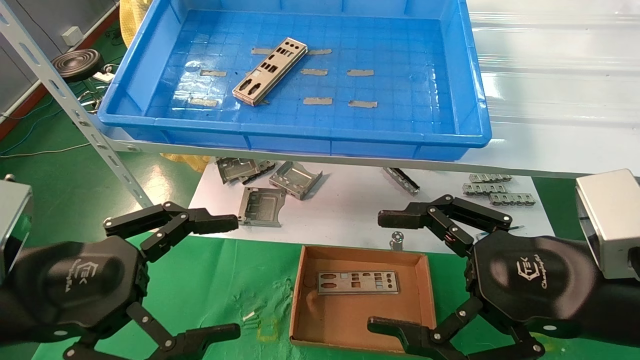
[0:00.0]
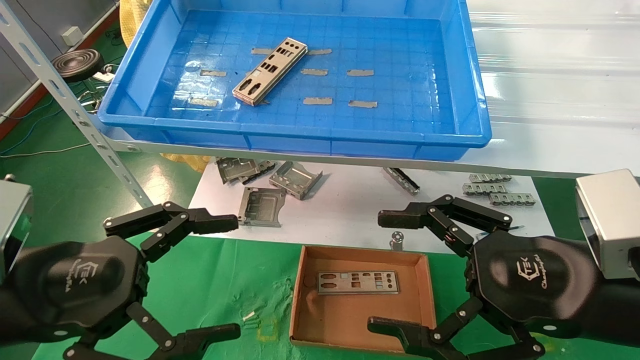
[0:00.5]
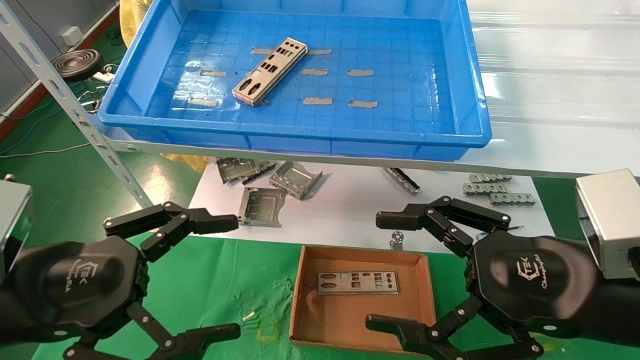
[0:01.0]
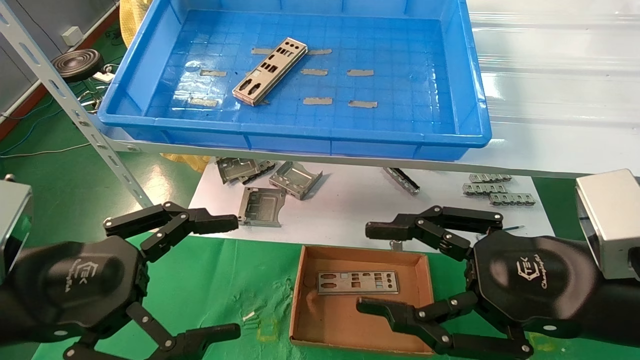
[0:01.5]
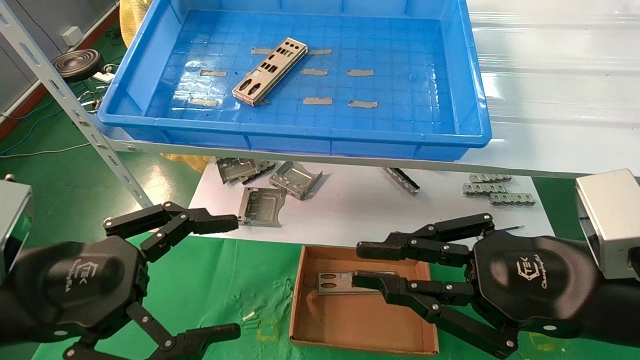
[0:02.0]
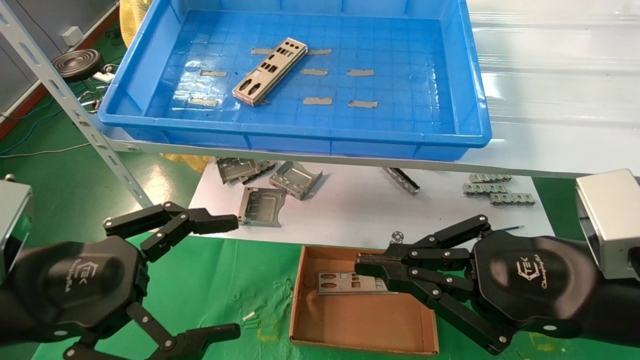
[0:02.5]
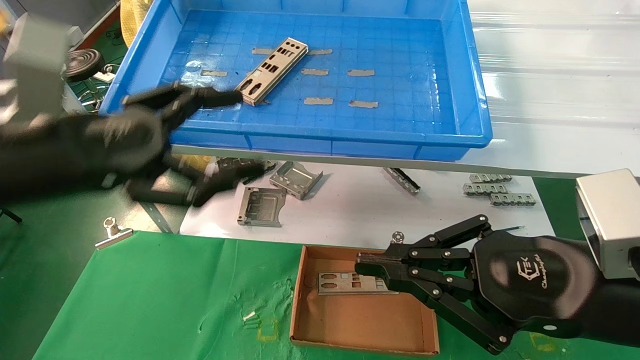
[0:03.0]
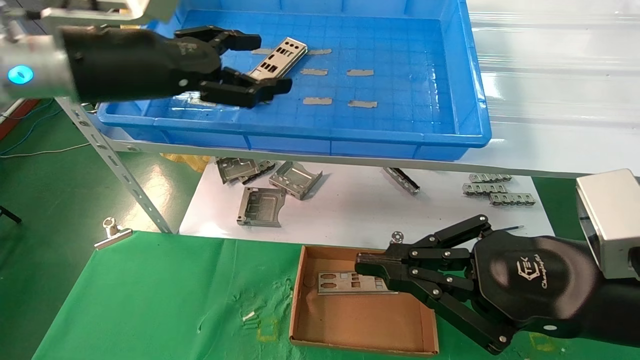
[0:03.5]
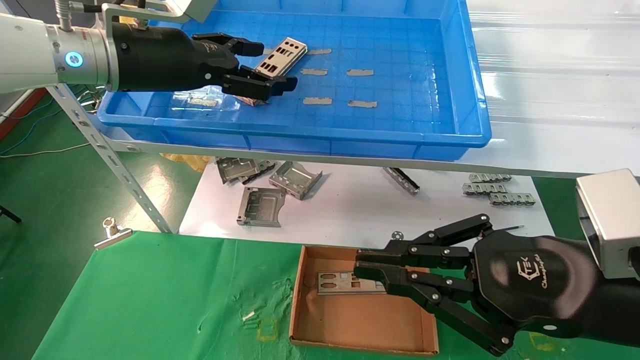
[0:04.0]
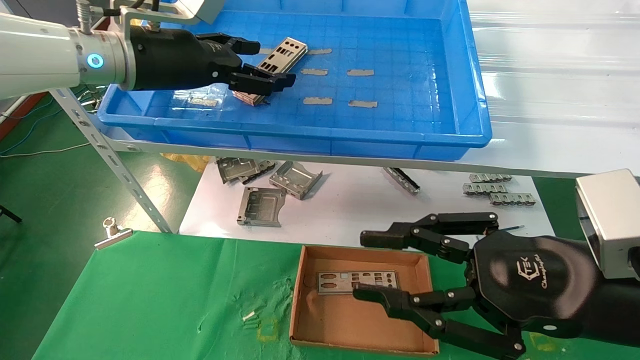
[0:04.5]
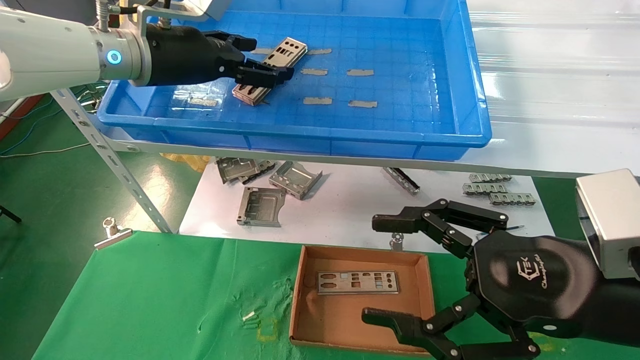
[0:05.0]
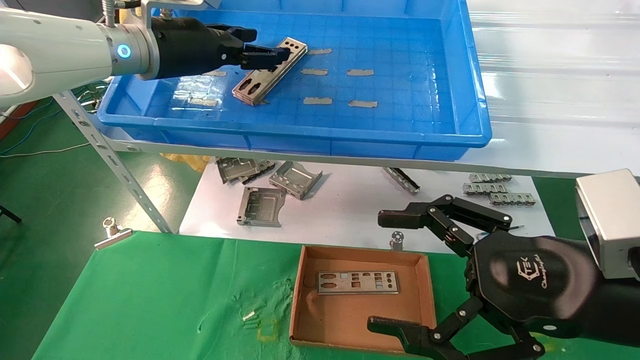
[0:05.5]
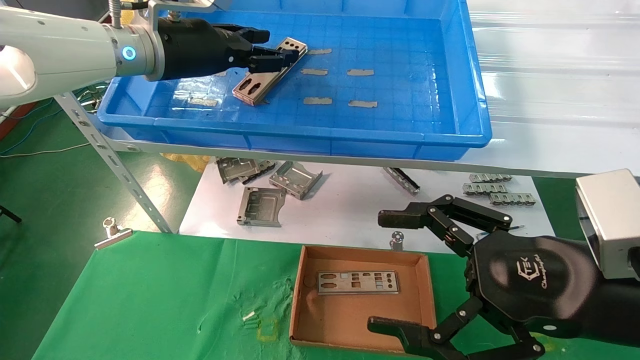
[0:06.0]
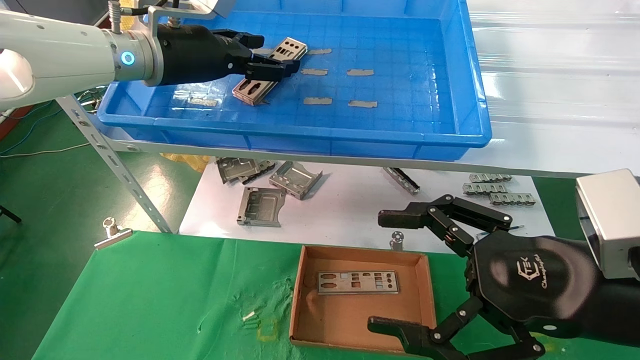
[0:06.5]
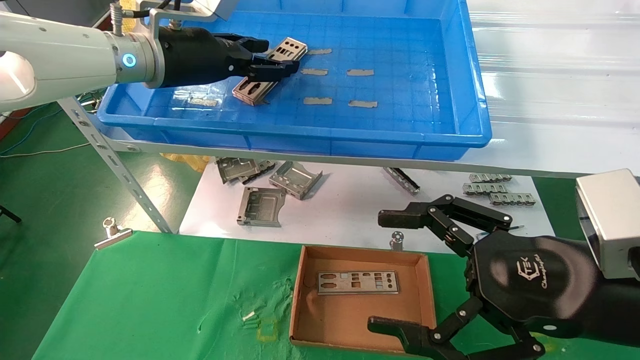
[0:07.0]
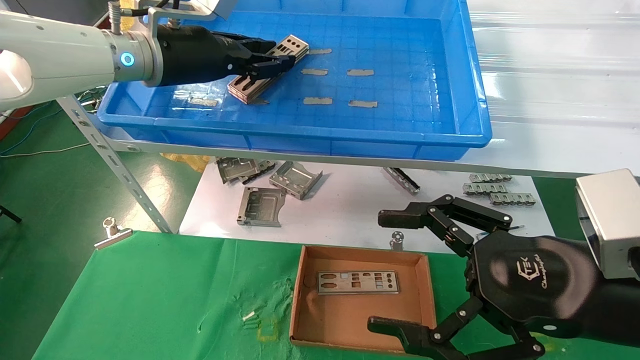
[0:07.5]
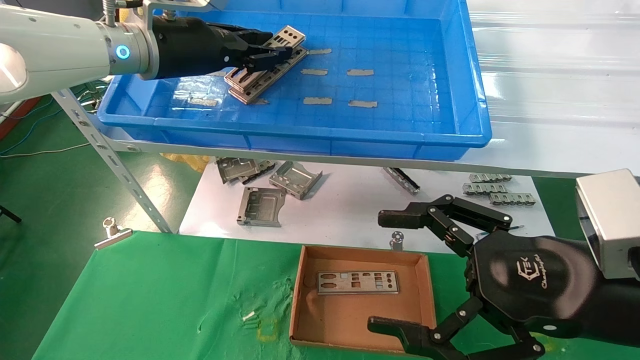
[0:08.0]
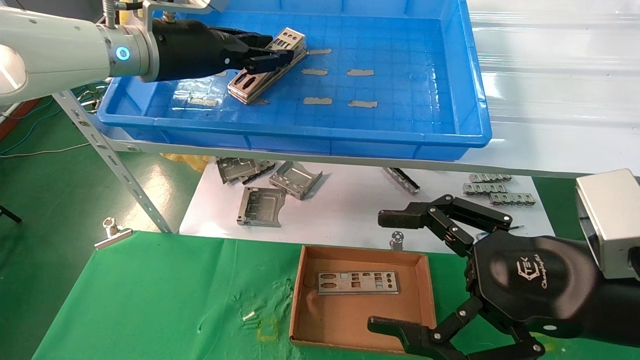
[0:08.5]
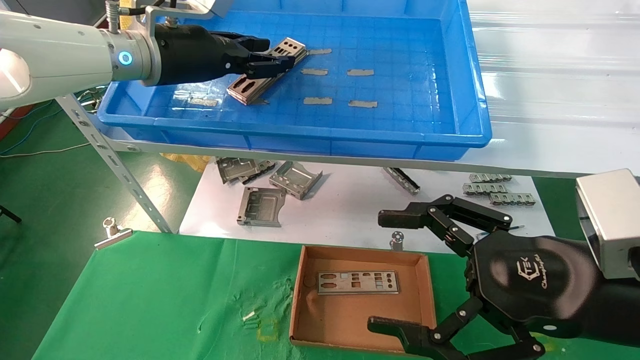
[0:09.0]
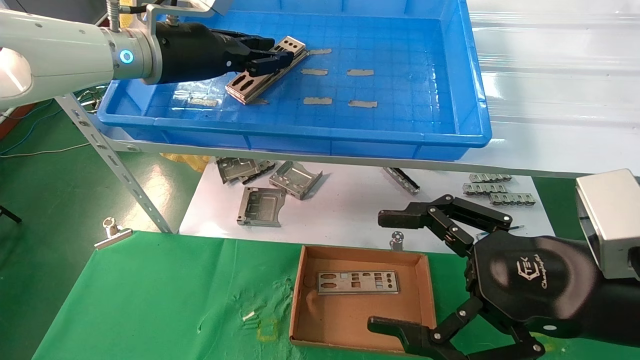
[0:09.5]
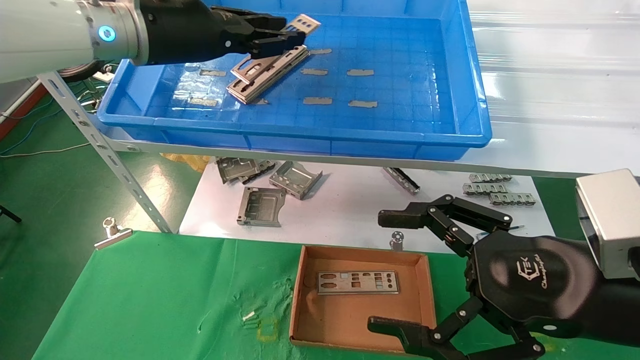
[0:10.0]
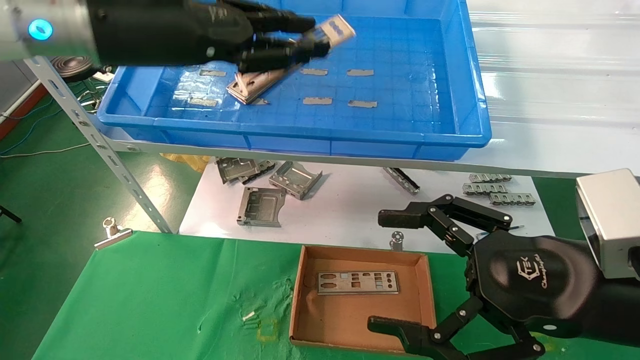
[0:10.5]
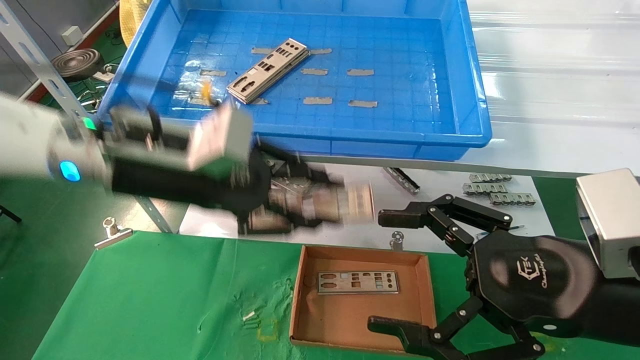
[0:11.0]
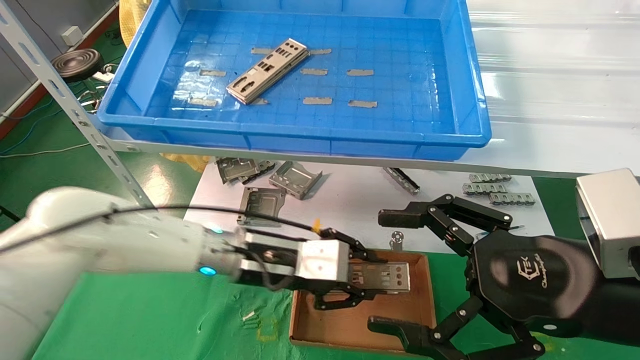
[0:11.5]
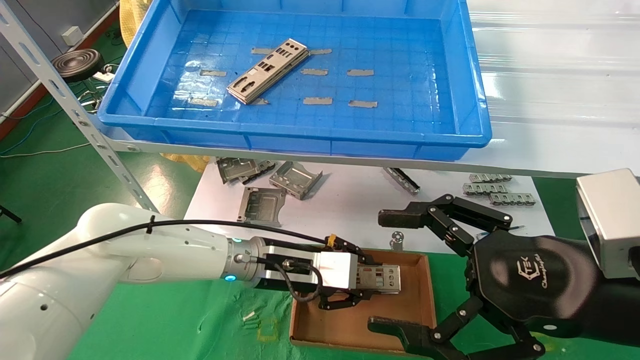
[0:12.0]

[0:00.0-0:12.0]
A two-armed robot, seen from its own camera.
Task of the whole recording: pick up the parts on the tray and put them in the cardboard box.
Step, 0:03.0 to 0:09.5: Pick up the IO bracket from the container box.
0:00.0 to 0:02.0: The right gripper closes its fingers.
0:02.0 to 0:04.0: The left gripper is displaced forward and upward by about 25 cm.
0:04.0 to 0:06.0: The right gripper opens up. The left gripper closes.
0:06.0 to 0:08.0: The left gripper closes.
0:08.0 to 0:10.0: The grippers move only a little.
0:10.0 to 0:12.0: The left gripper moves downward, roughly 30 cm.

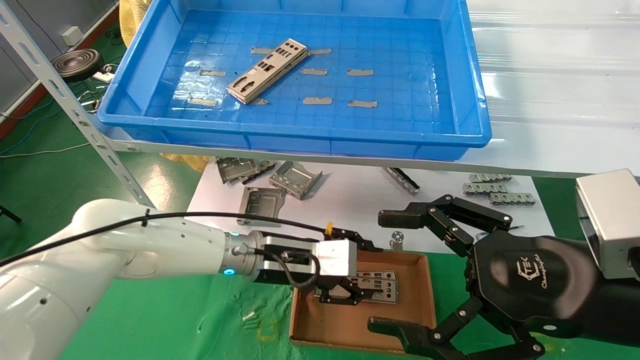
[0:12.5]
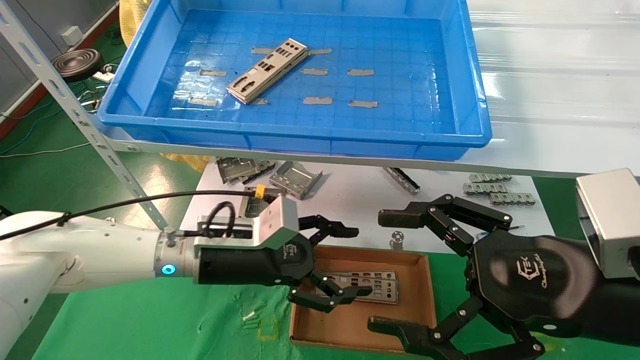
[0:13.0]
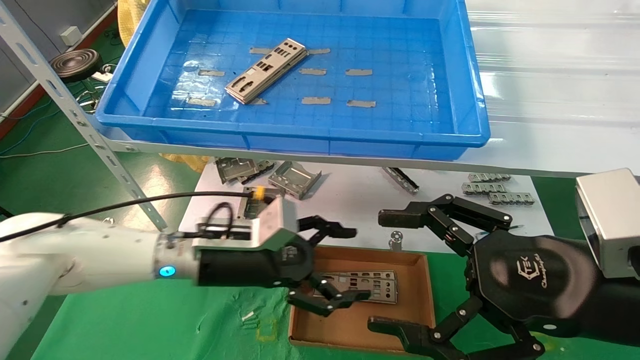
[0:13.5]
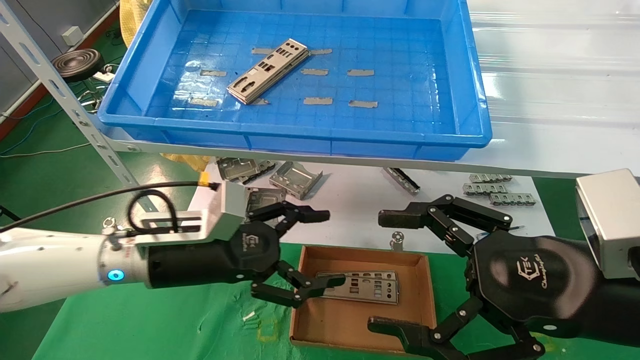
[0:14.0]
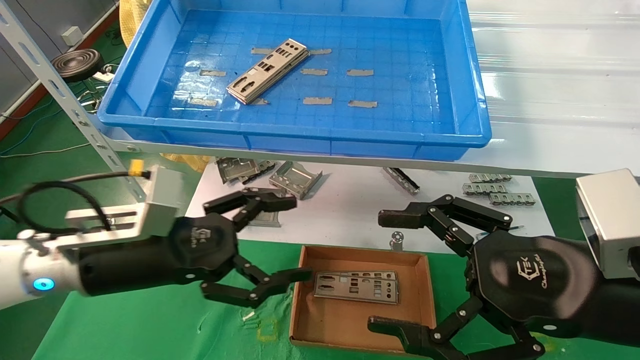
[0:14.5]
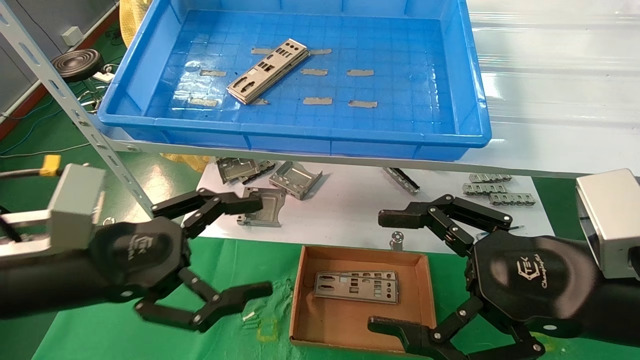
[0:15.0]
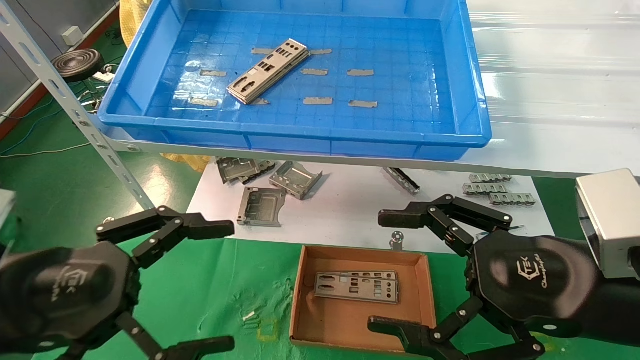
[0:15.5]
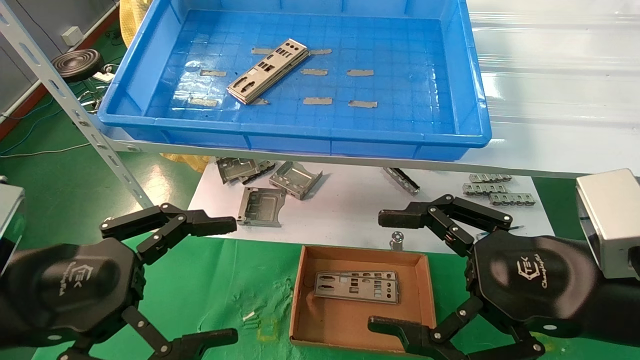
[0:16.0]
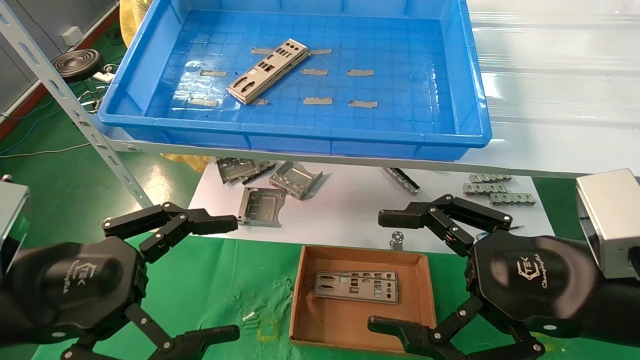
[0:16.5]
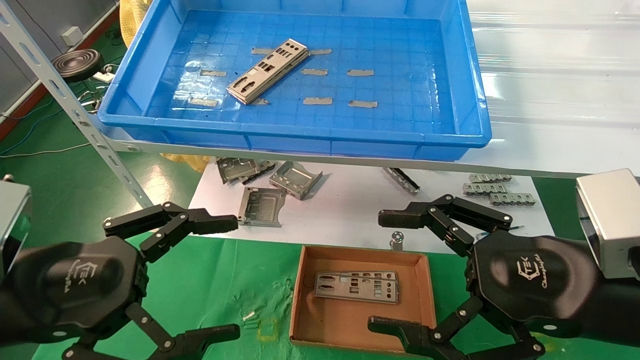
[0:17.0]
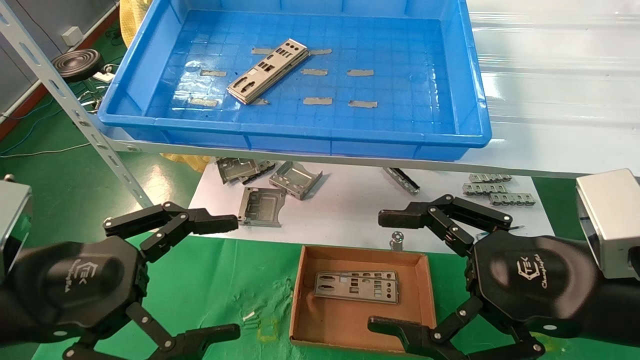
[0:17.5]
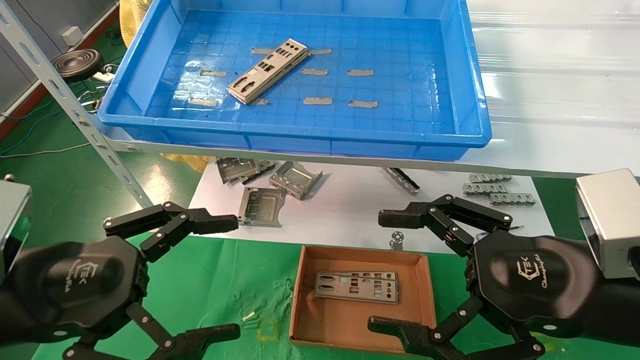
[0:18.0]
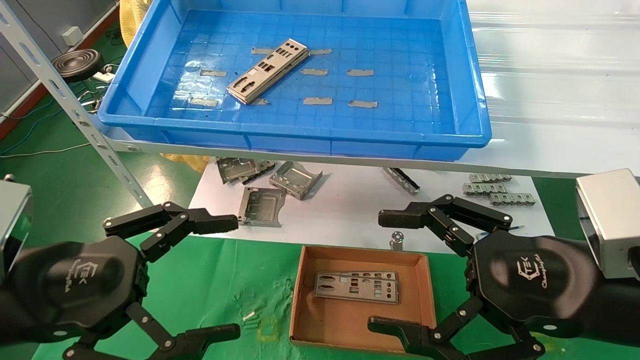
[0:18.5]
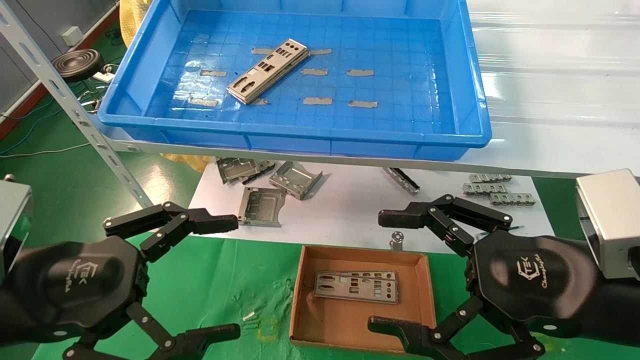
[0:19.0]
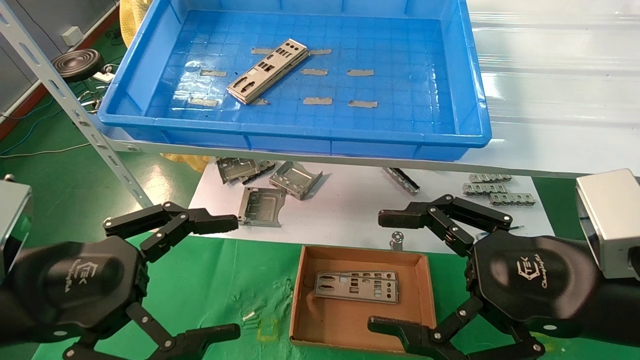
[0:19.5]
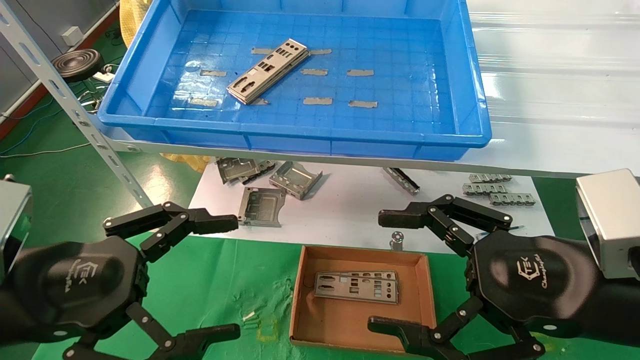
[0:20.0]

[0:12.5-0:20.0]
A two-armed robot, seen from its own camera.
Task of the whole recording: pick up the parts on the tray and put them in the cardboard box.
0:12.5 to 0:14.5: The left gripper goes some 20 cm to the left and backward, and opens its fingers.
0:14.5 to 0:16.5: The left gripper shifts about 10 cm backward and to the left.
0:16.5 to 0:20.0: Neither gripper changes place.
